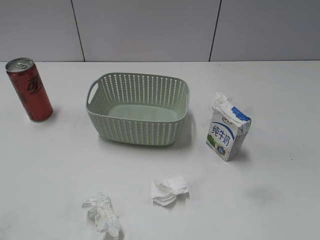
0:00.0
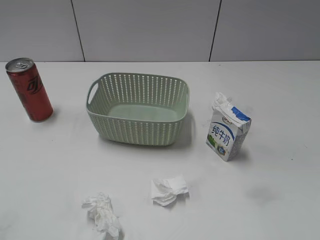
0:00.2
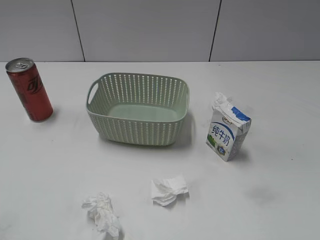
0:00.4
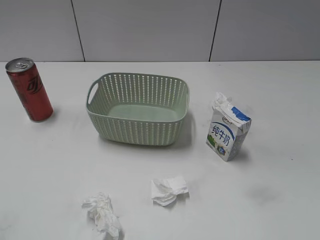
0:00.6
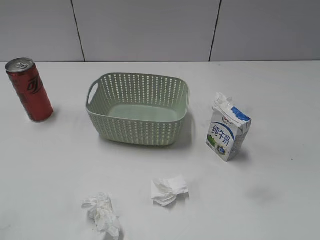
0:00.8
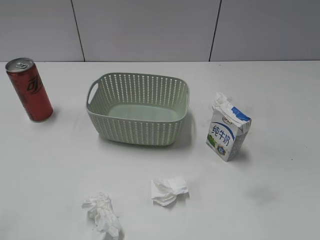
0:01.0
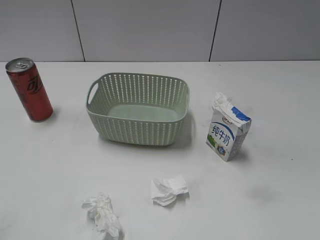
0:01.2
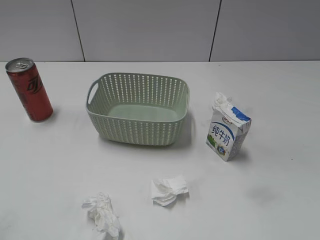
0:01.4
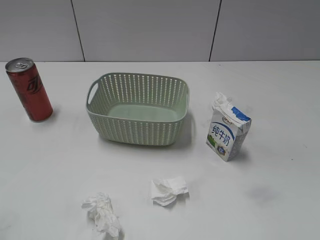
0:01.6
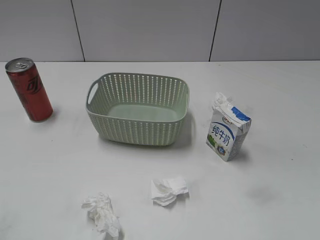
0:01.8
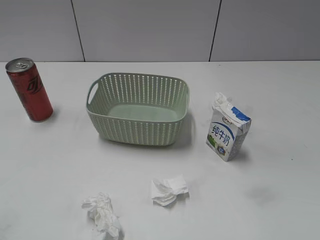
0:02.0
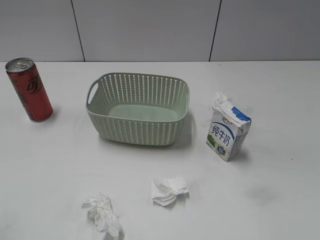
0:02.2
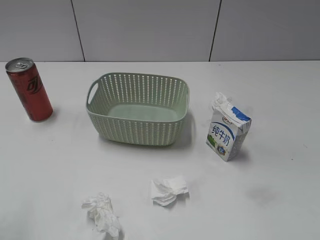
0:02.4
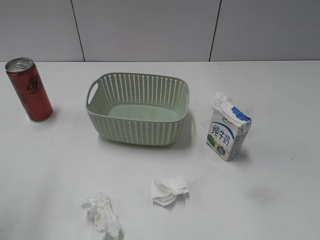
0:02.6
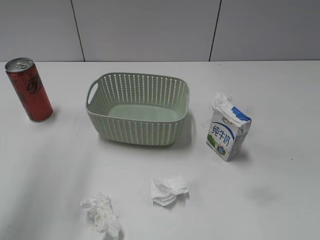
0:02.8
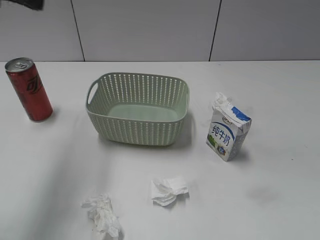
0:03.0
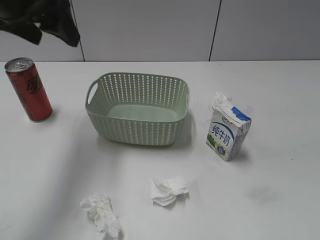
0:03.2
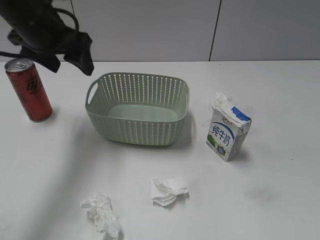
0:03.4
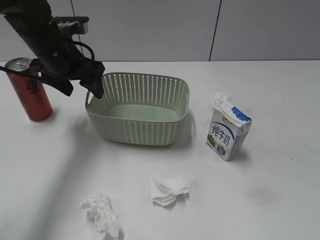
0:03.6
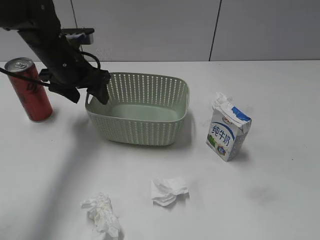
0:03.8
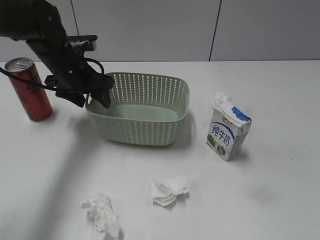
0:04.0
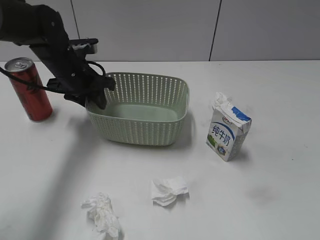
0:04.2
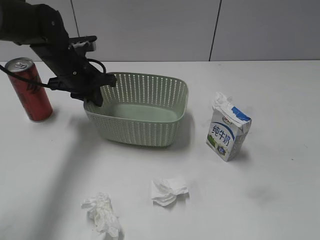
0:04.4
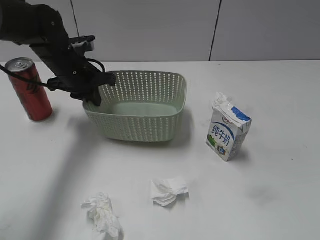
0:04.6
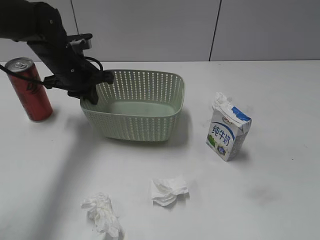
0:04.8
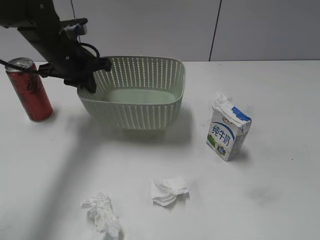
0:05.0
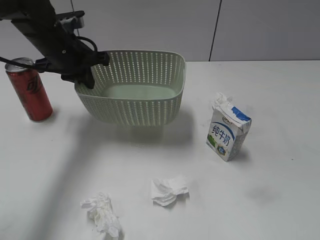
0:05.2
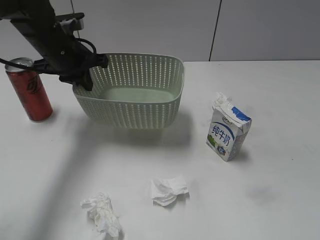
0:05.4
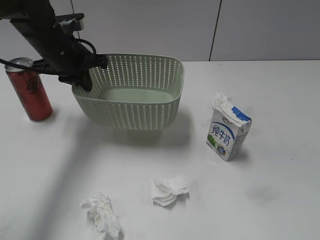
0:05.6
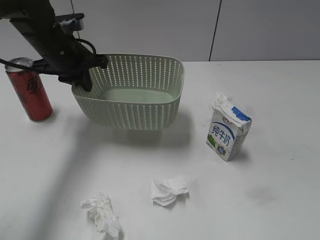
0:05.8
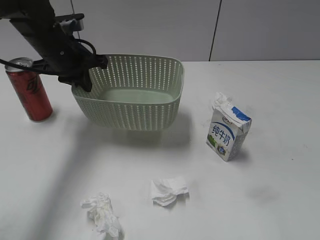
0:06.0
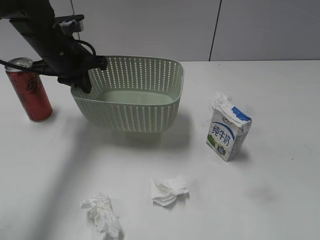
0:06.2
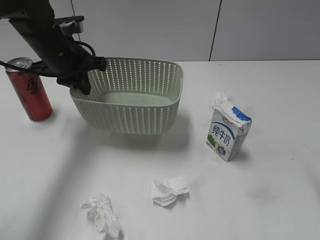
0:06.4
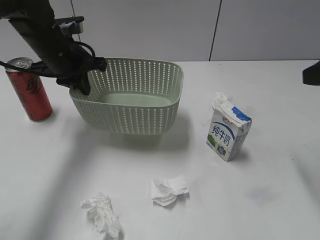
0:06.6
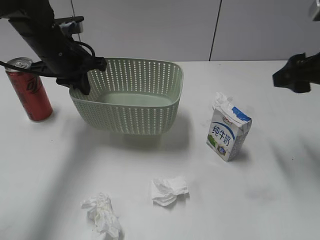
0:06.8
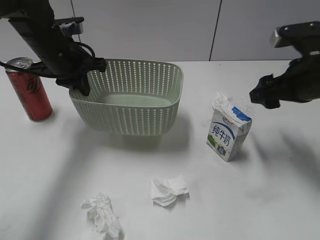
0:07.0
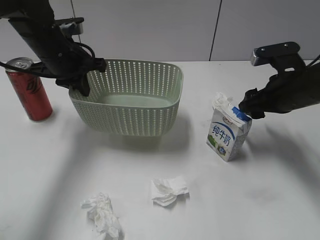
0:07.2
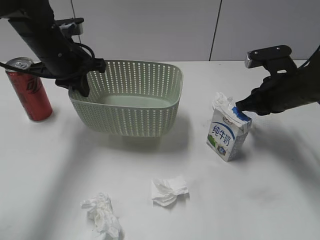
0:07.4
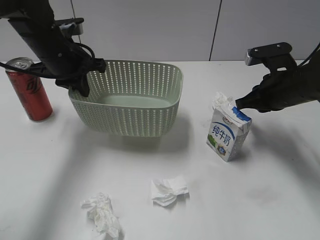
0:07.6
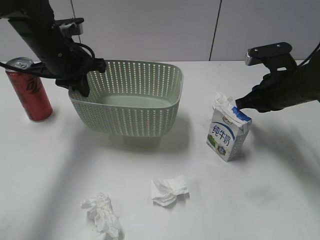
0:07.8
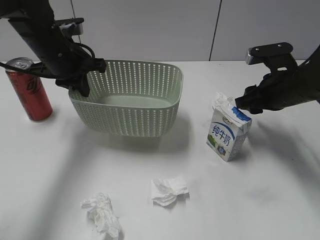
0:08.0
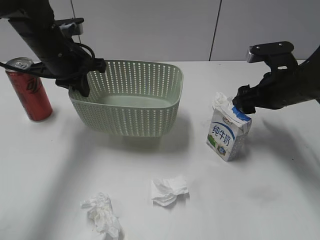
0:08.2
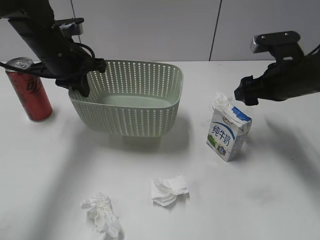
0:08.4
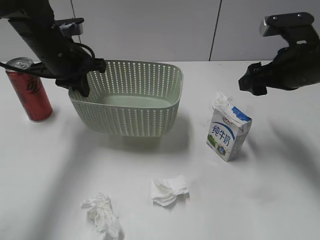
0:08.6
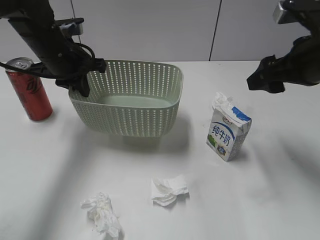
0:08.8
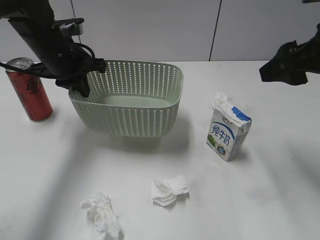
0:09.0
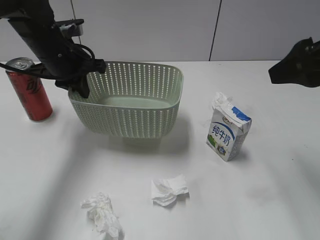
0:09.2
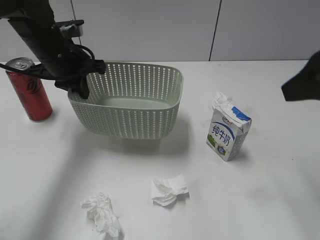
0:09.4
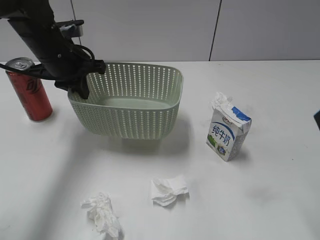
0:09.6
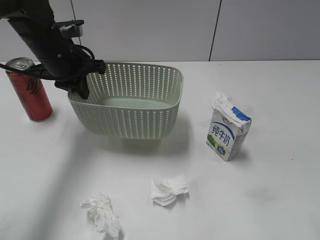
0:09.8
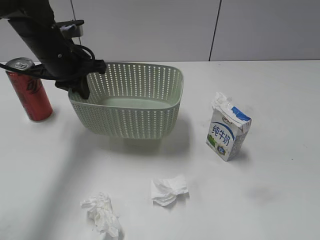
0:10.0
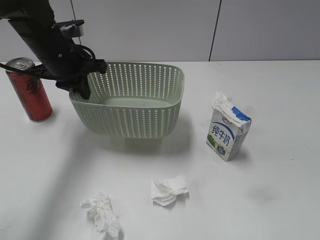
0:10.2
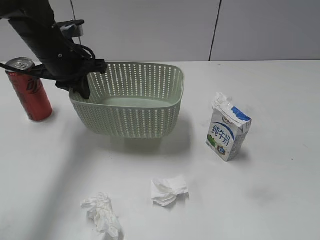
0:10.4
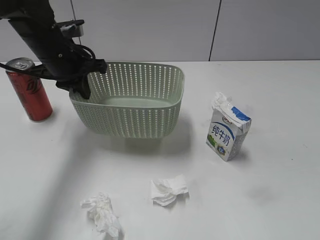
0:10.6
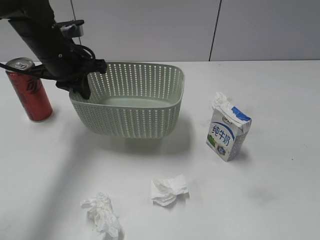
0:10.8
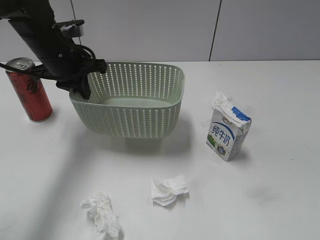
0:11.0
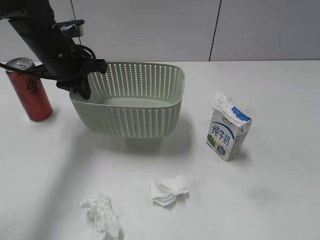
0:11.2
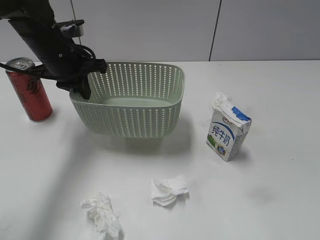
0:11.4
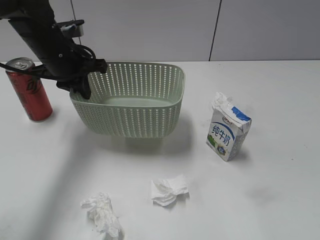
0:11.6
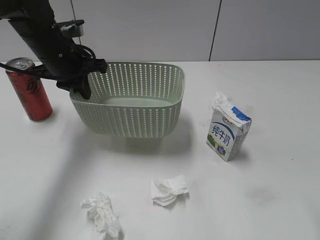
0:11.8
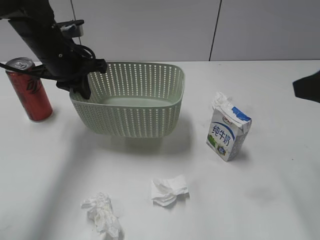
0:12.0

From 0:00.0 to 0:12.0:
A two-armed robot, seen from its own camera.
Step, from 0:03.0 to 0:04.4: Grasp the basket with left gripper.
Step, from 0:04.6 to 0:06.4: Lift the basket with left gripper.
From 0:01.6 to 0:03.0: The left gripper moves forward and upward, about 25 cm, and opens up.
From 0:03.0 to 0:04.4: The left gripper travels downward and forward by approximately 30 cm, and closes.
From 0:04.4 to 0:06.0: The right gripper changes place by about 5 cm.
From 0:06.0 to 0:07.6: The right gripper is displaced forward and downward by roughly 35 cm, and closes its fingers.
From 0:07.6 to 0:09.0: The right gripper goes approximately 15 cm upward and backward, and opens up.
From 0:09.0 to 0:10.4: The right gripper moves backward, approximately 25 cm.
From 0:10.4 to 0:12.0: The right gripper goes roughly 10 cm forward.

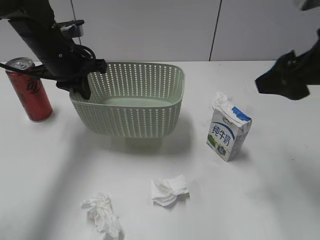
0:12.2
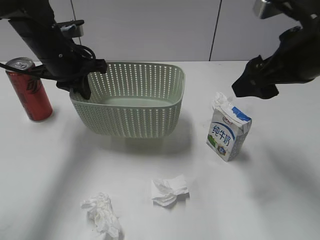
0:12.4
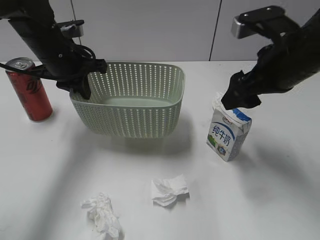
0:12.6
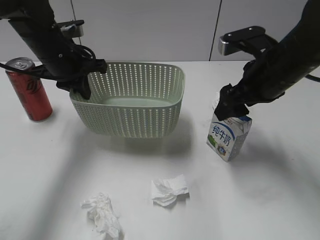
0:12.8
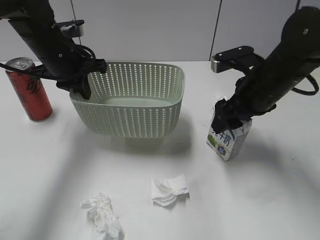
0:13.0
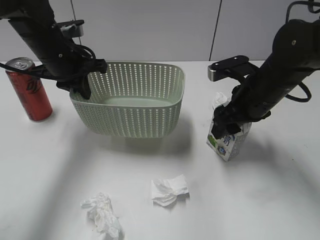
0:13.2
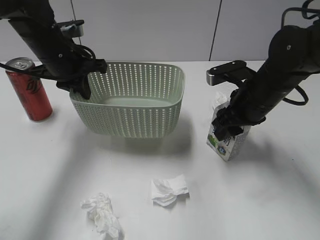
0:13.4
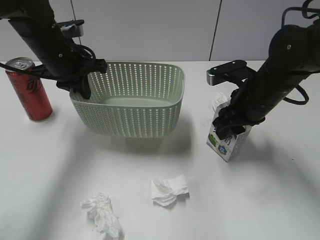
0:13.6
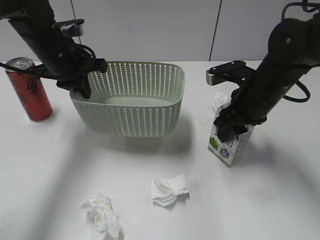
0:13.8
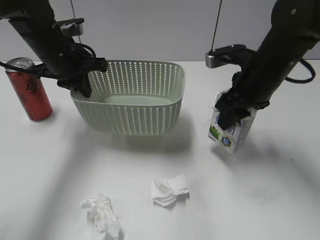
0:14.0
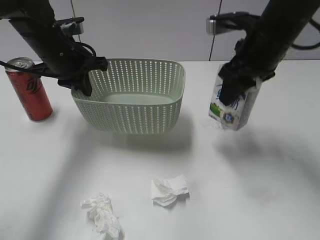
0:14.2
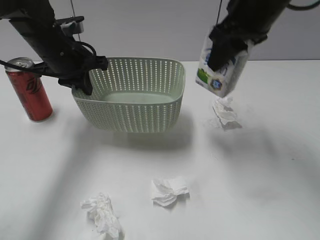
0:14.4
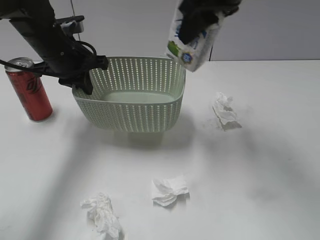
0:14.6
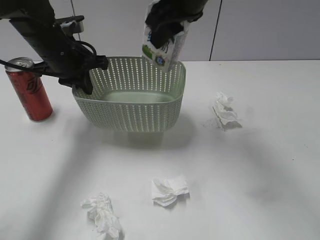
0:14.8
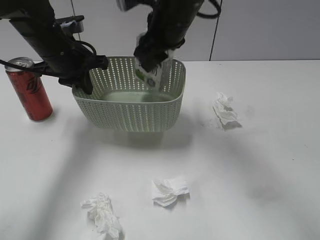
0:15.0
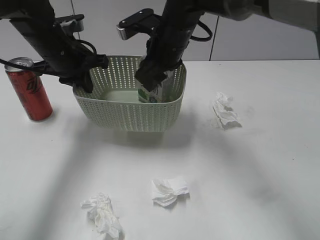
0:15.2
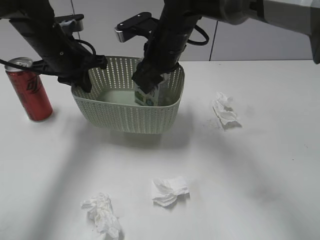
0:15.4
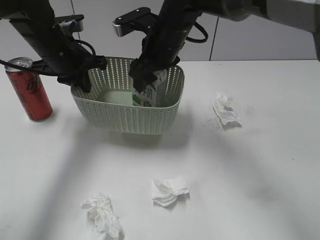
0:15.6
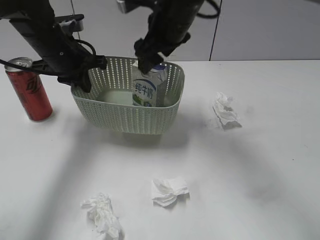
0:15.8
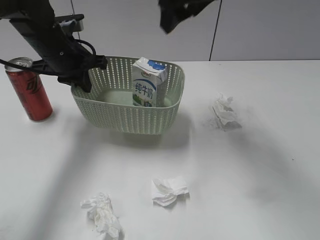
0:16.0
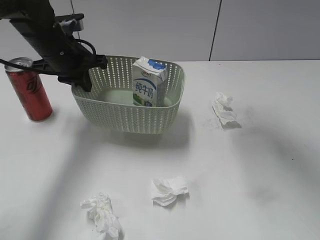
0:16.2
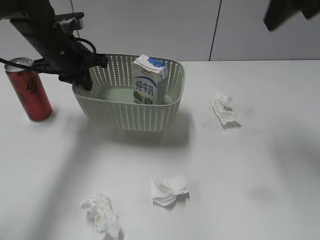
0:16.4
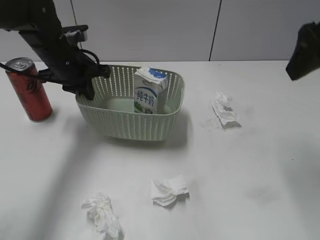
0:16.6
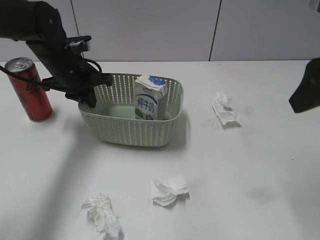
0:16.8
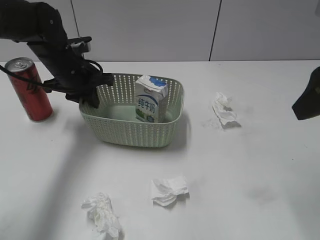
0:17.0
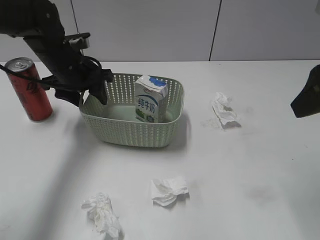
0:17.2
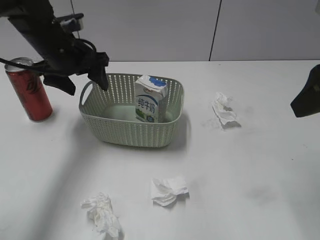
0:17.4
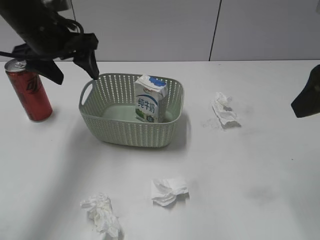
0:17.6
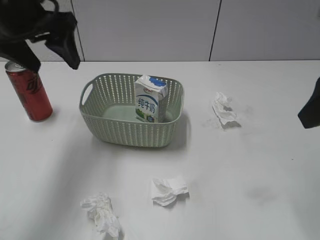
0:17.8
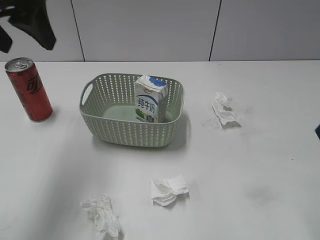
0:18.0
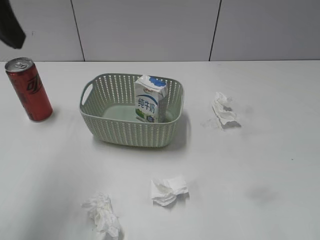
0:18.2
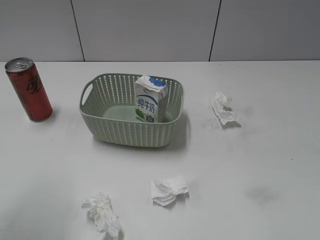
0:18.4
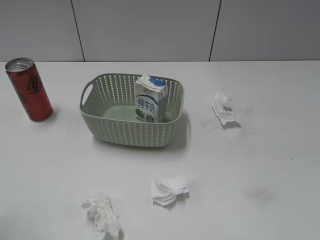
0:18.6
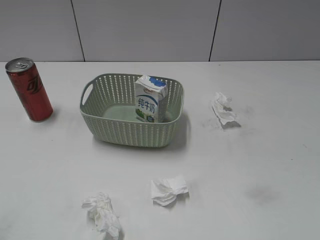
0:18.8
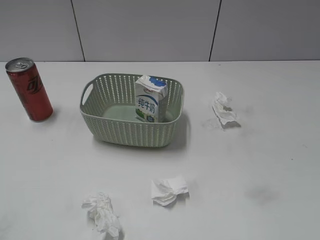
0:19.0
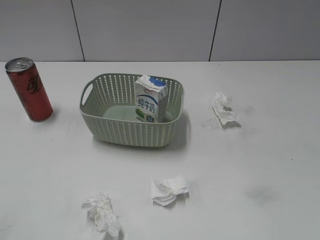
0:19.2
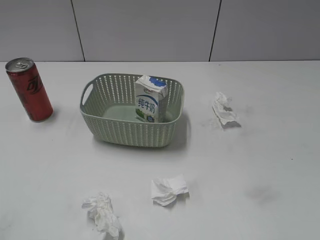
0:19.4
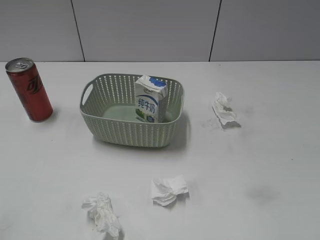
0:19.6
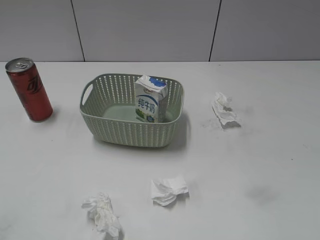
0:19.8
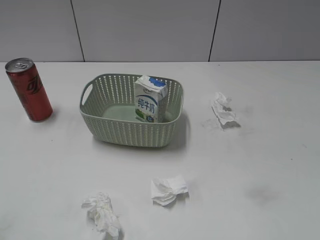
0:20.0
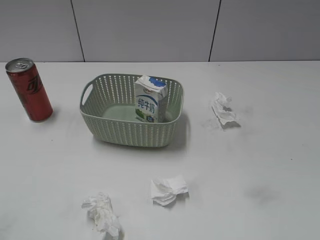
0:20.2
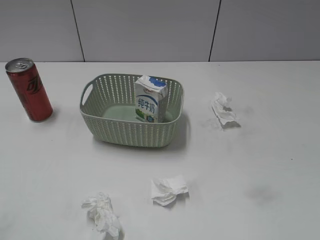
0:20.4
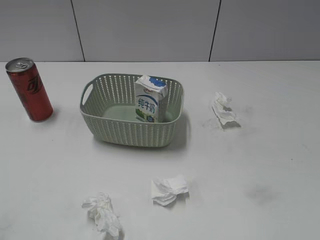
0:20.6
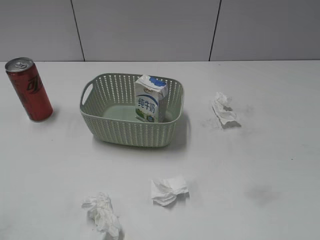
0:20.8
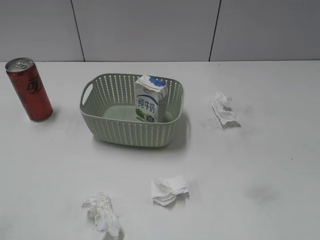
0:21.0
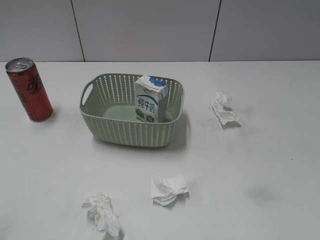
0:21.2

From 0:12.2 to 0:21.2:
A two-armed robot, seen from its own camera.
Step, from 0:13.8 to 0:15.8: Place the milk in the basket with right gripper.
From 0:12.2 to 0:13.8: The right gripper shifts approximately 20 cm downward, forward and to the left, and closes up.
From 0:13.8 to 0:15.2: The right gripper shifts about 20 cm to the left, upward and forward.
From 0:15.2 to 0:16.6: The right gripper heads to the right, upward and backward, covering about 25 cm, and opens up.
From 0:16.6 to 0:18.2: The left gripper shifts approximately 20 cm upward and backward, and opens, while the right gripper shifts about 15 cm backward.
From 0:18.2 to 0:19.8: The left gripper shifts roughly 25 cm backward.

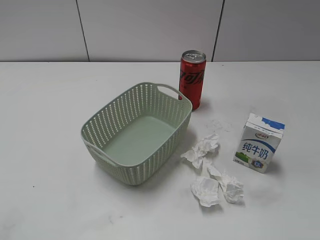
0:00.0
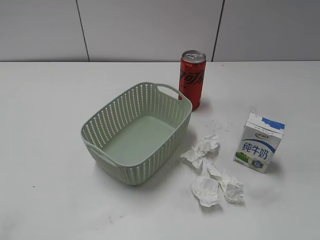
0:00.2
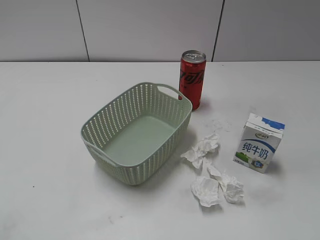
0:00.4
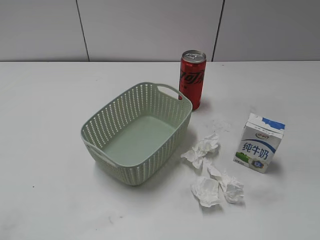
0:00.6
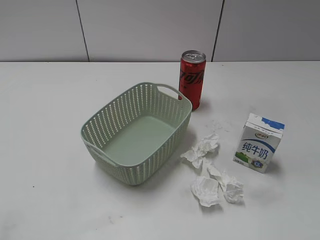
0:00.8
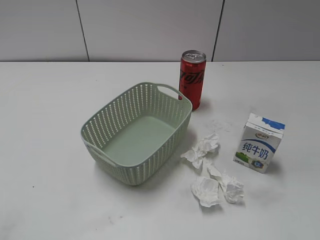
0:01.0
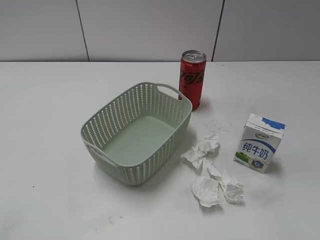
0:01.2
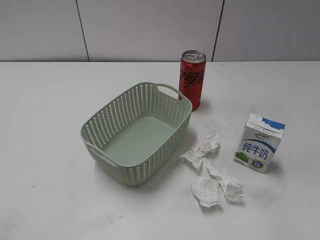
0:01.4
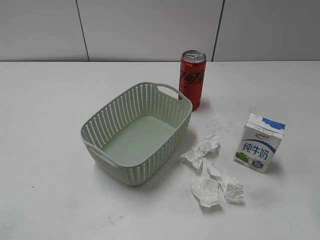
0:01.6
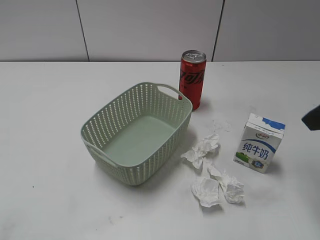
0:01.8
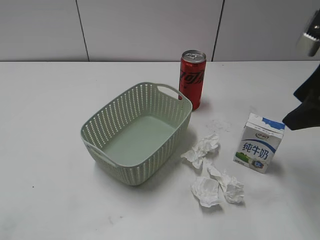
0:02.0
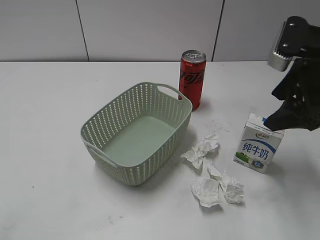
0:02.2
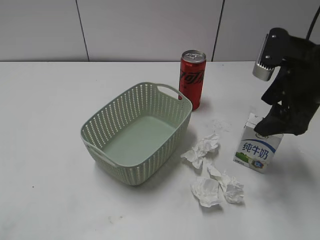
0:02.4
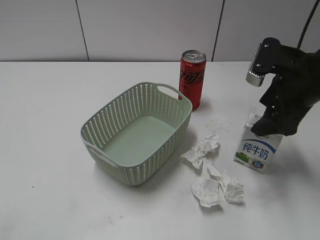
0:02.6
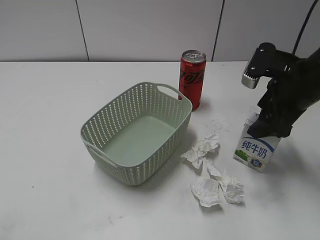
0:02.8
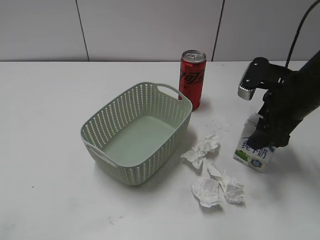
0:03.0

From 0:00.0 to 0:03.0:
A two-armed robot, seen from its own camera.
From 0:01.6 to 0:03.0: The right gripper travels forward, downward and to the left by about 20 cm.
